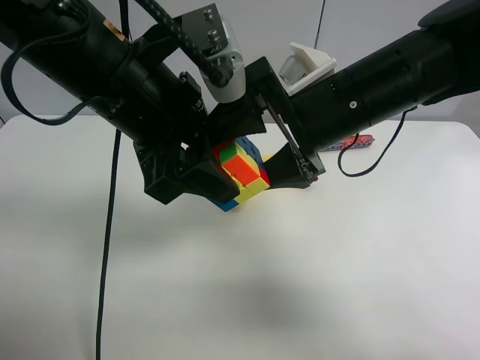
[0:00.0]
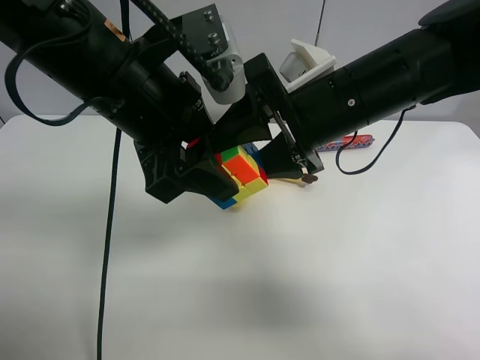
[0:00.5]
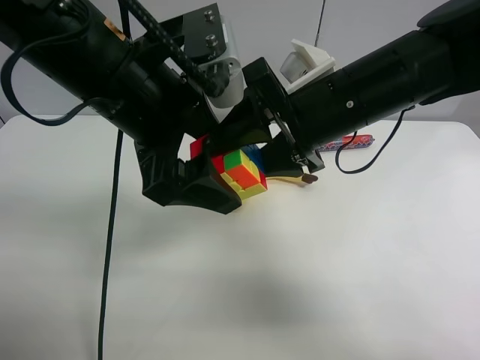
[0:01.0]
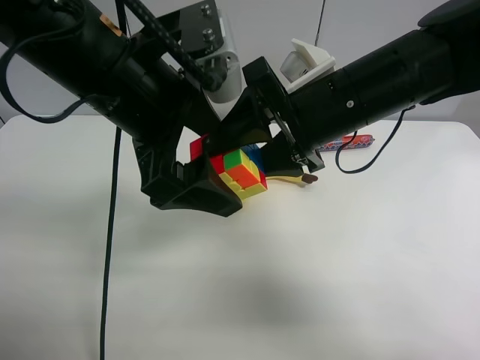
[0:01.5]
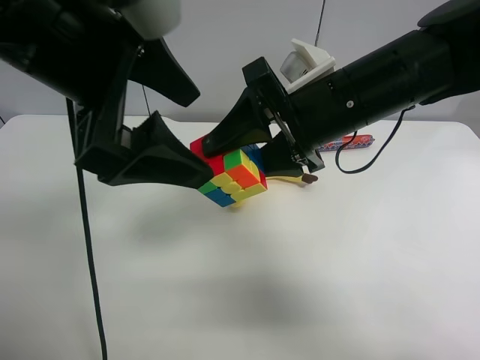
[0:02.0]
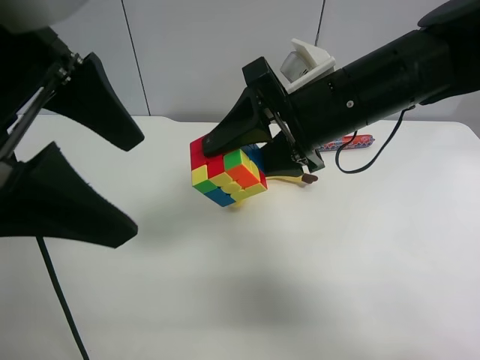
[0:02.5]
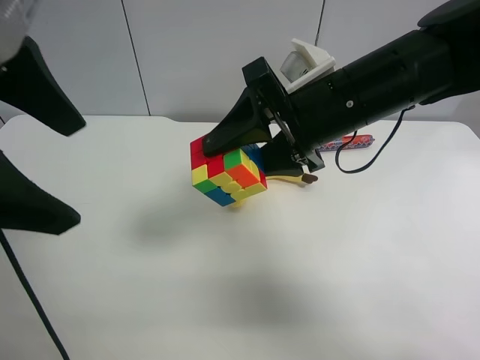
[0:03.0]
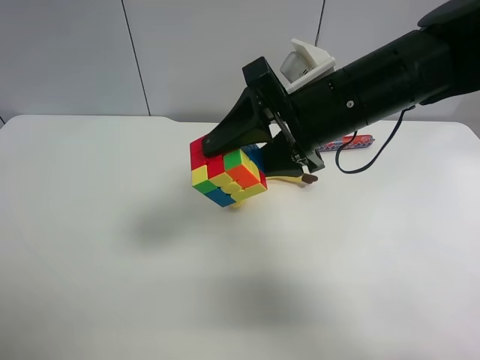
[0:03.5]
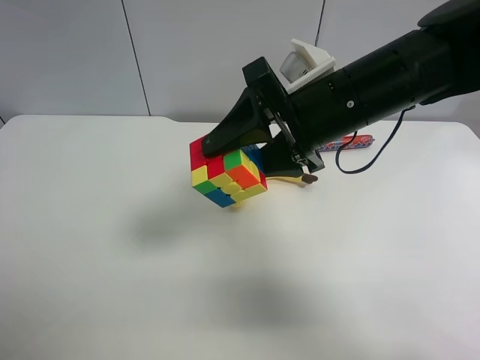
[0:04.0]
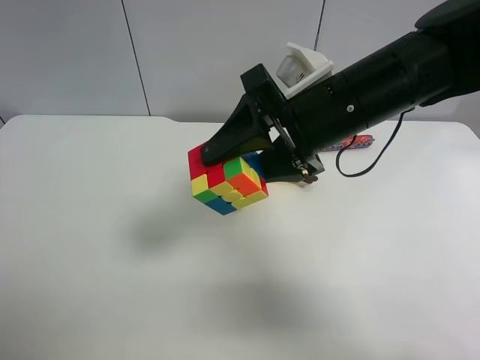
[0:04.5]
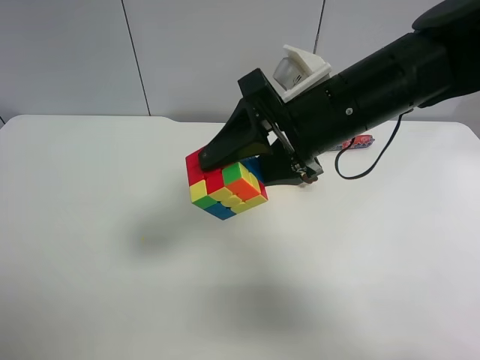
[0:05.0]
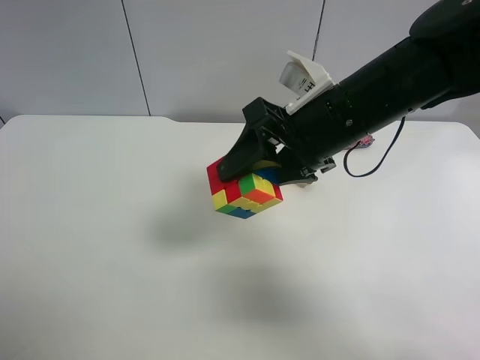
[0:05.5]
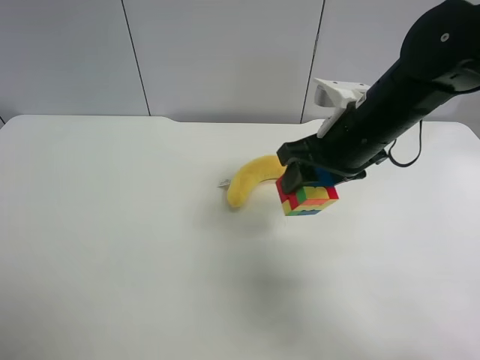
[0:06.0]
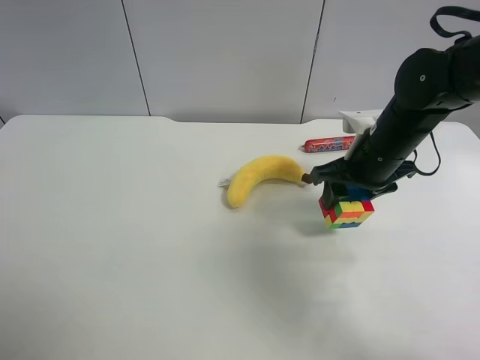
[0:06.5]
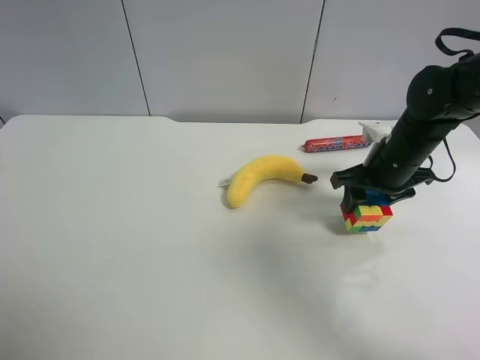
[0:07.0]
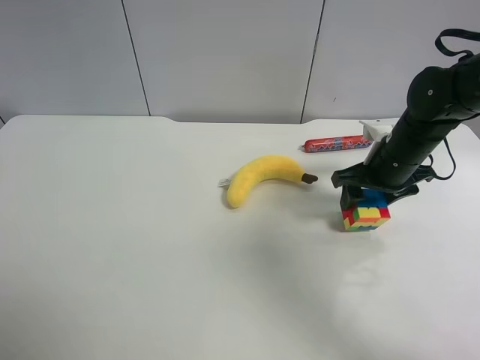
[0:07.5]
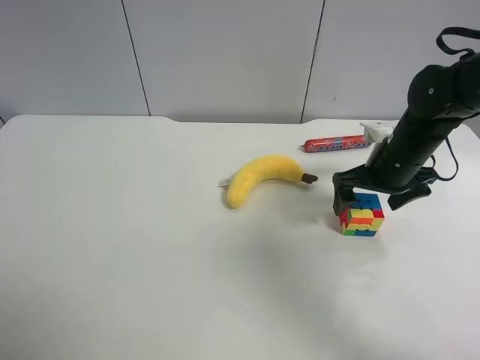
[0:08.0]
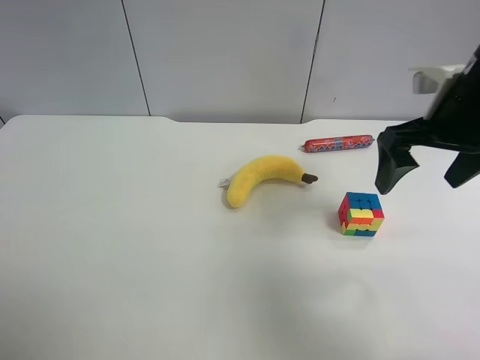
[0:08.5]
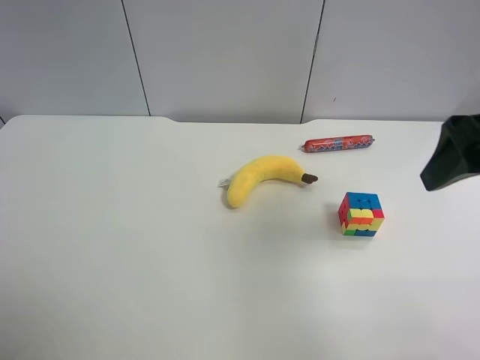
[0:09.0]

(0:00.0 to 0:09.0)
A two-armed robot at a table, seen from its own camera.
Task of the whole recording: use the left gripper to pick up the item and transfer it from the left gripper to the right gripper.
0:00.0 - 0:02.0: The left gripper is displaced upward by approximately 5 cm, and opens its fingers. The right gripper closes.
0:02.0 - 0:04.5: The left gripper heads to the left and backward, covering roughly 25 cm.
0:04.5 - 0:07.0: The right gripper is displaced to the right, downward and forward by about 20 cm.
0:07.0 - 0:09.0: The right gripper shifts about 25 cm upward and backward, and opens.

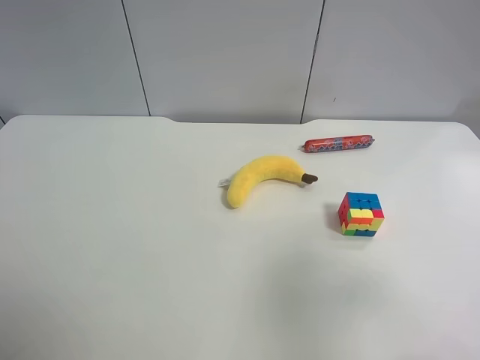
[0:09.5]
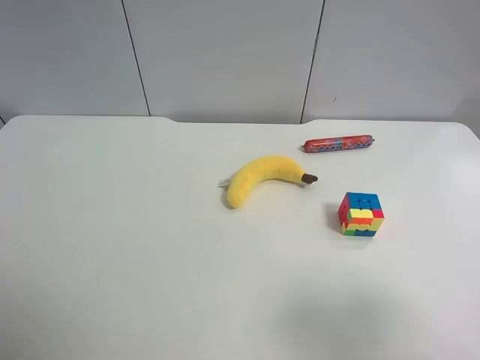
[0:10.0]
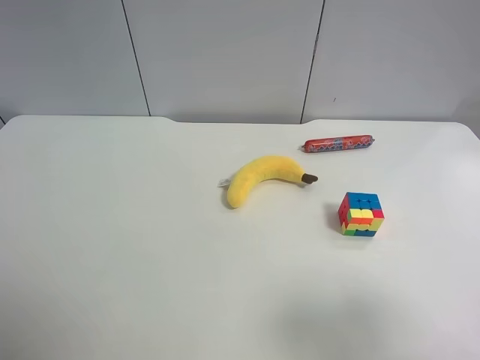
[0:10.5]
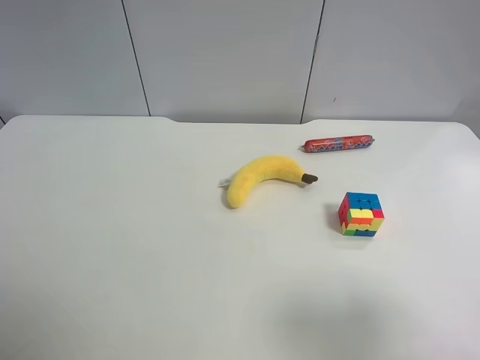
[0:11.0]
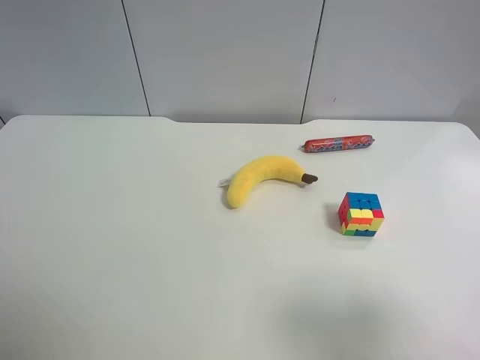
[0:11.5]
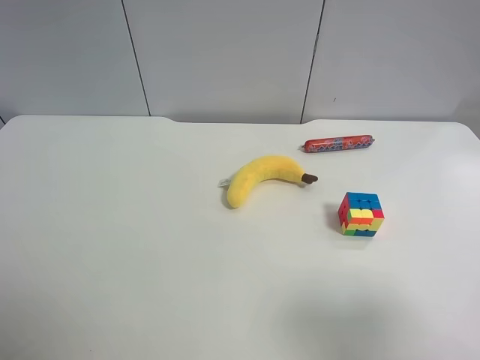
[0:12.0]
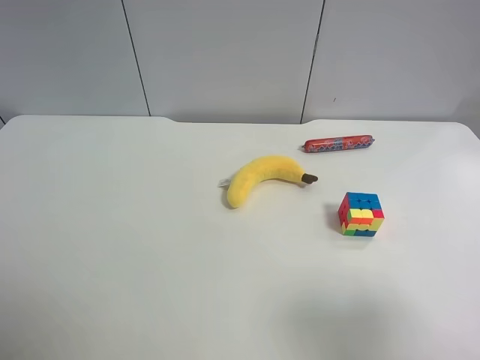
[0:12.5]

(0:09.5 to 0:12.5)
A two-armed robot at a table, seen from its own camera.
Task of the whole recording: use the left gripper to pick up the item and transfer it from the left gripper to the right gripper.
0:09.5 - 0:11.0: The right gripper goes approximately 5 cm backward.
0:11.0 - 0:12.5: The two grippers keep their place.
